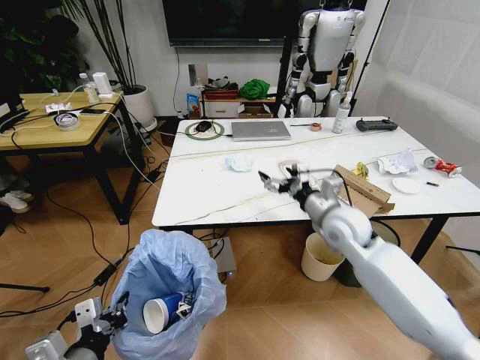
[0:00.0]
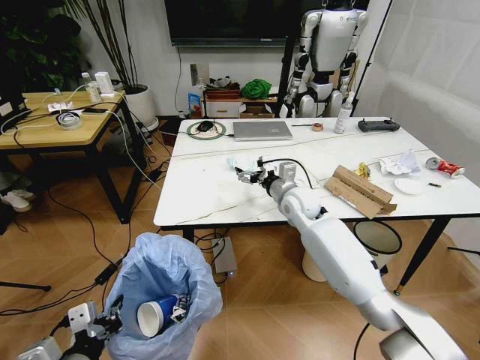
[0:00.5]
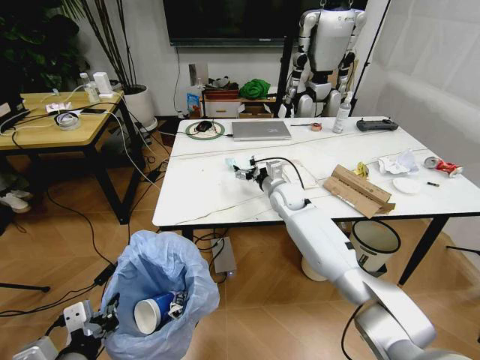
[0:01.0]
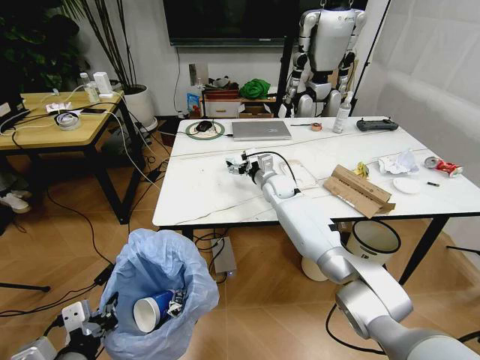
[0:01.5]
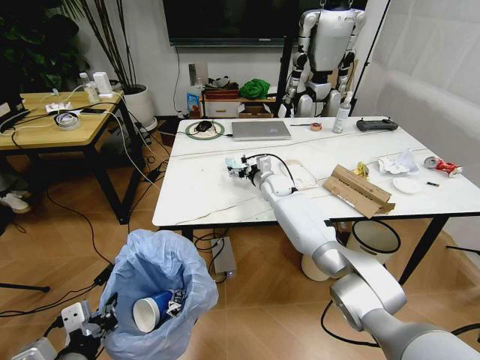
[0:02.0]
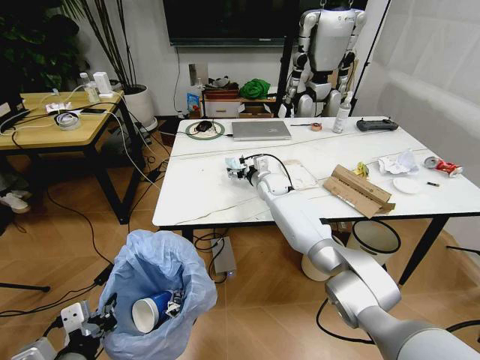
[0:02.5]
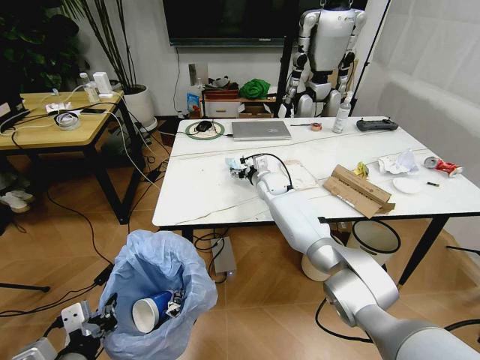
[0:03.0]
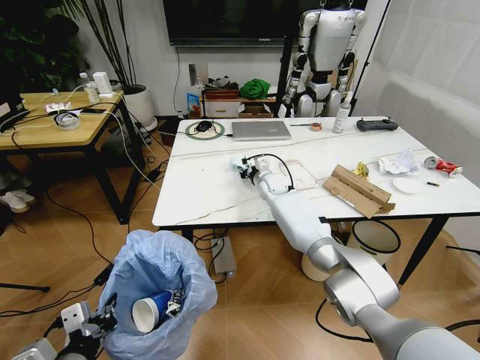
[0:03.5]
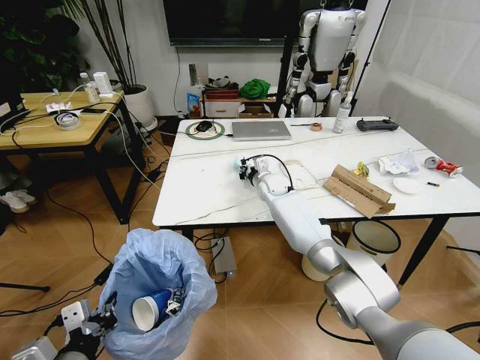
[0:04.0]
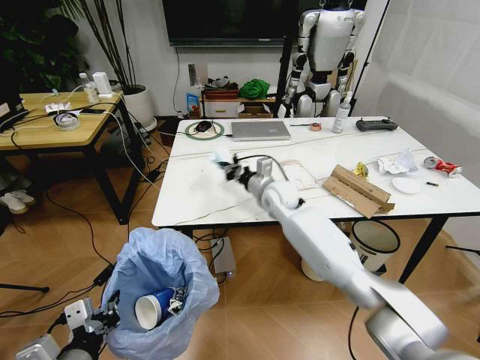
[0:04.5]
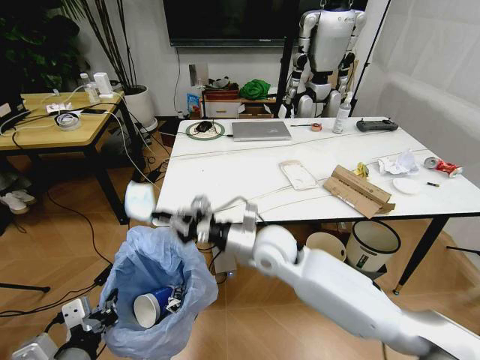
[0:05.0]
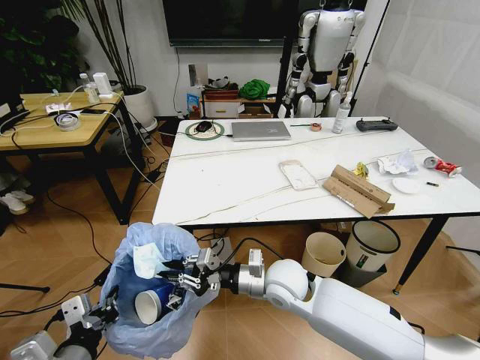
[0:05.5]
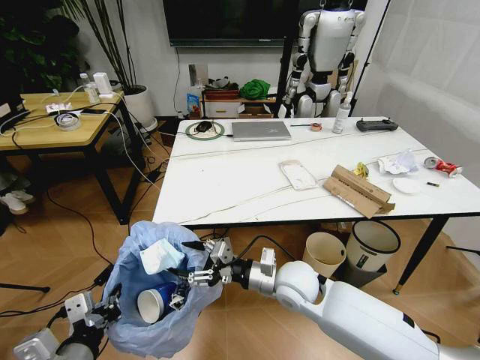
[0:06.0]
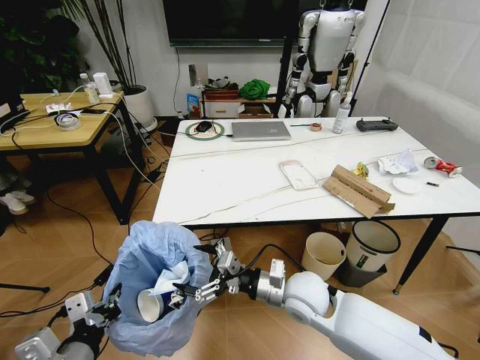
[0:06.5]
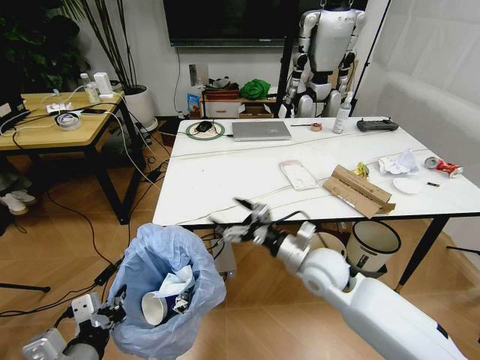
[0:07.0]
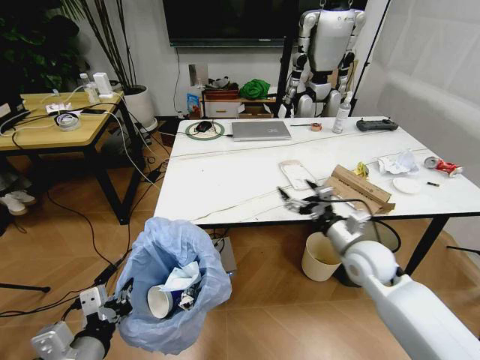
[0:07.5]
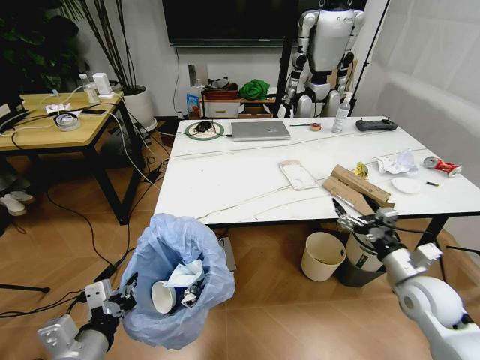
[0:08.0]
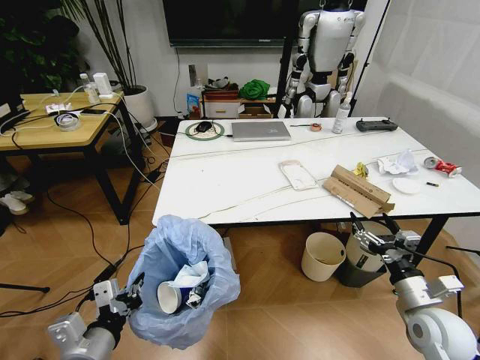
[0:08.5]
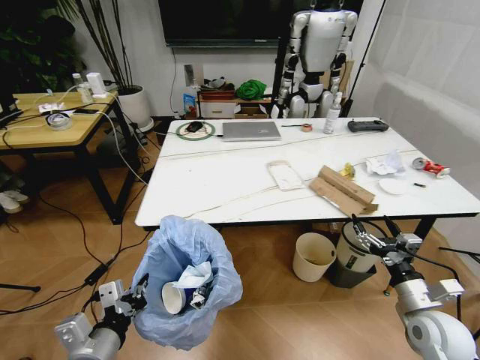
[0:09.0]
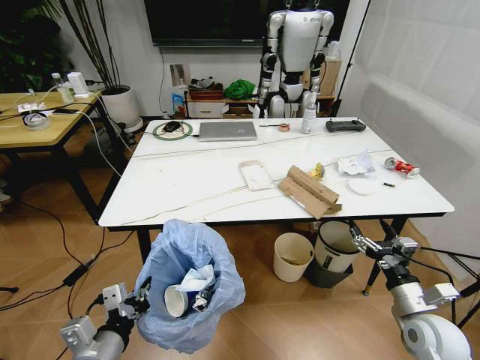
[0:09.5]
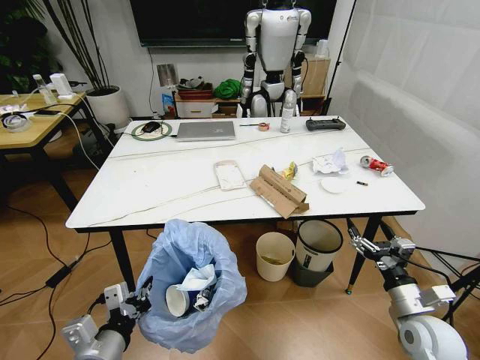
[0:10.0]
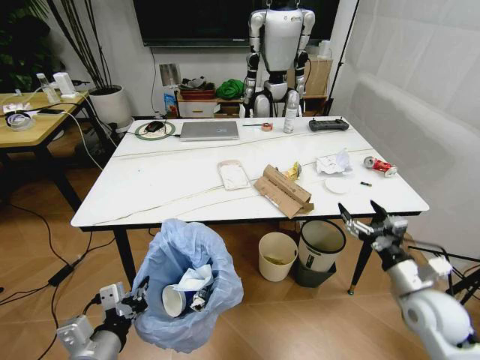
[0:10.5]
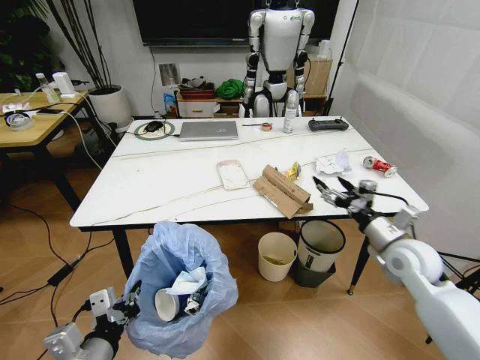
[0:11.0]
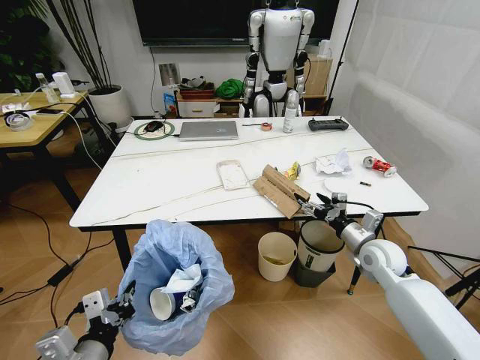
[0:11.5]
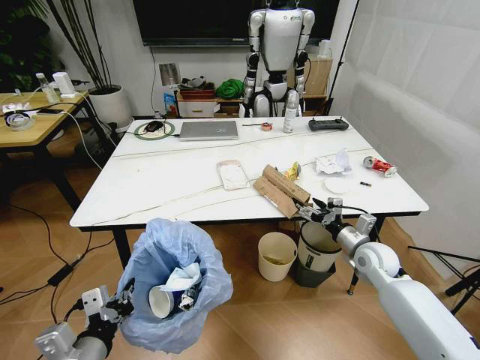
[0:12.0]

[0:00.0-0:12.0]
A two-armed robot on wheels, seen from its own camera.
Task of the whole recording: Pick up the trash bin and place the trash from the table into it.
0:00.0 to 0:02.0: The right gripper goes about 25 cm forward and to the left.
0:02.0 to 0:04.0: The right gripper closes.
0:04.0 to 0:06.0: The right gripper is displaced backward by roughly 30 cm, and opens its fingers.
0:06.0 to 0:08.0: The right gripper heads to the right, covering approximately 25 cm.
0:08.0 to 0:10.0: The right gripper moves backward, about 5 cm.
0:10.0 to 0:12.0: The right gripper heads forward, covering roughly 15 cm.

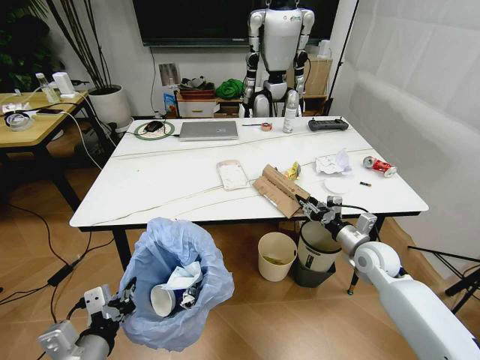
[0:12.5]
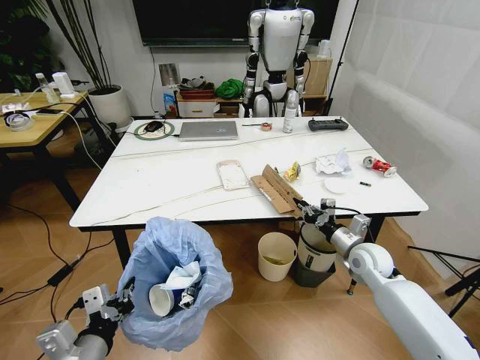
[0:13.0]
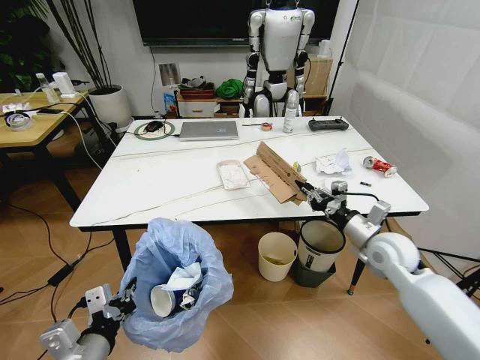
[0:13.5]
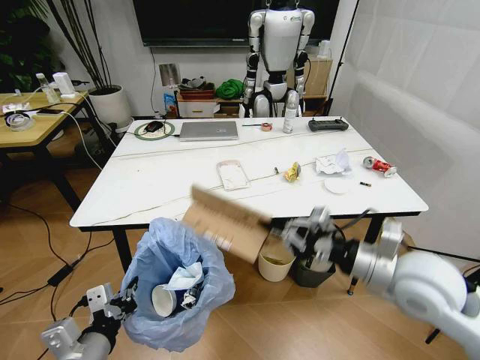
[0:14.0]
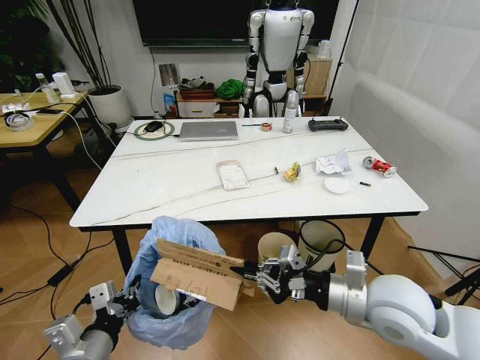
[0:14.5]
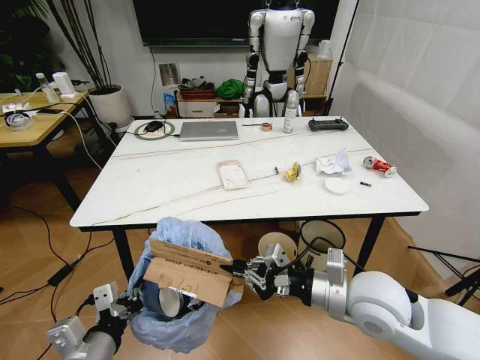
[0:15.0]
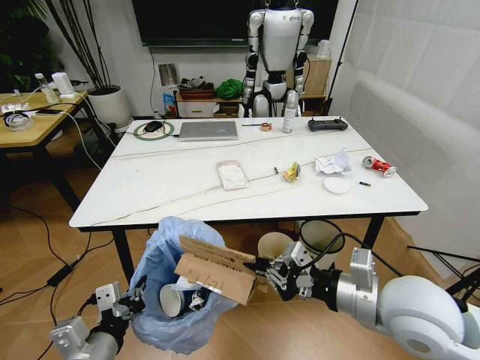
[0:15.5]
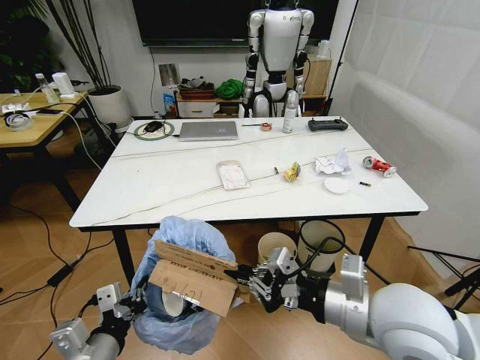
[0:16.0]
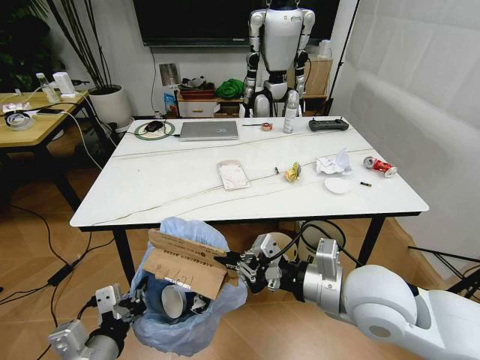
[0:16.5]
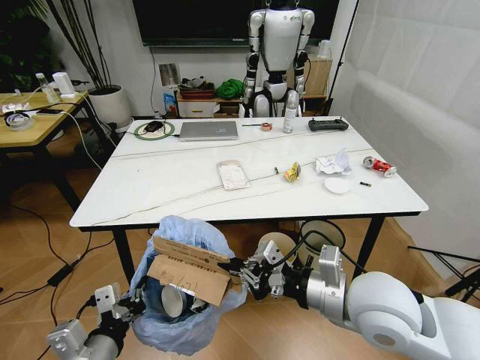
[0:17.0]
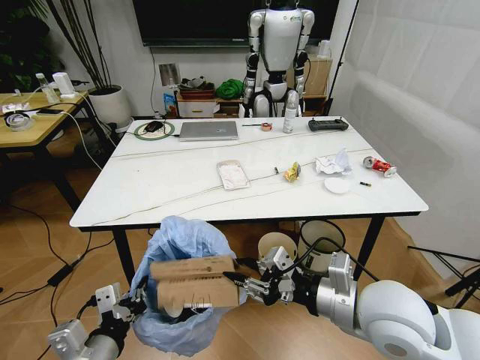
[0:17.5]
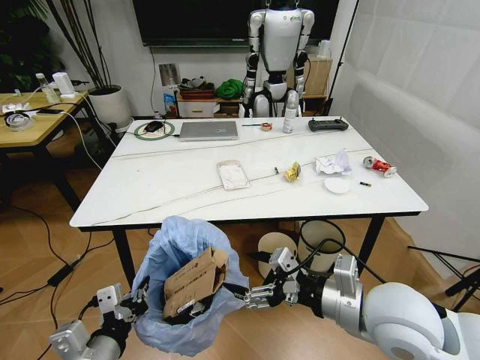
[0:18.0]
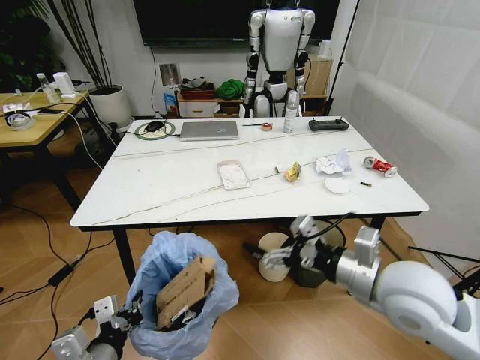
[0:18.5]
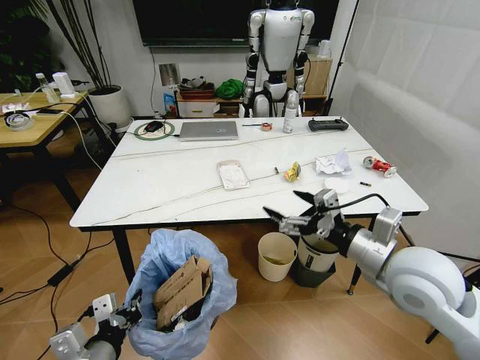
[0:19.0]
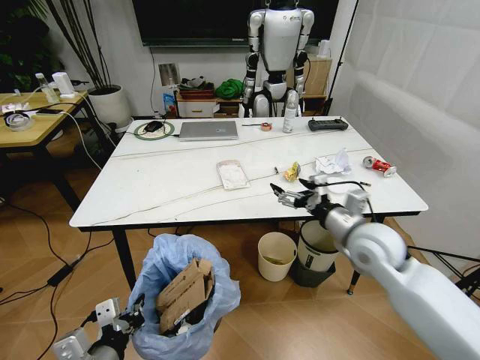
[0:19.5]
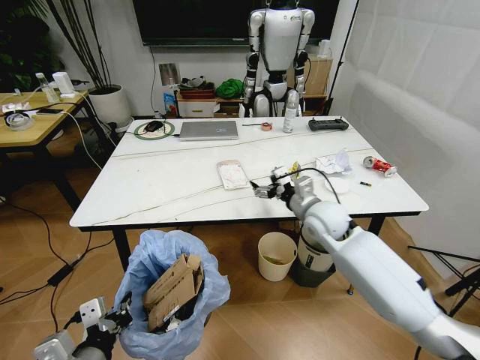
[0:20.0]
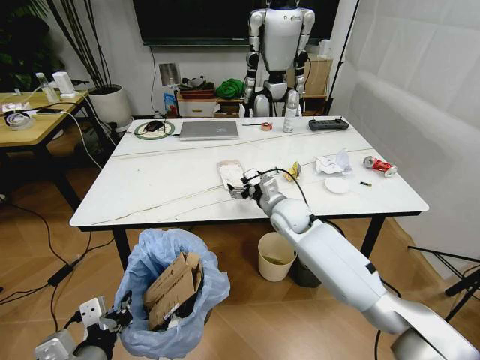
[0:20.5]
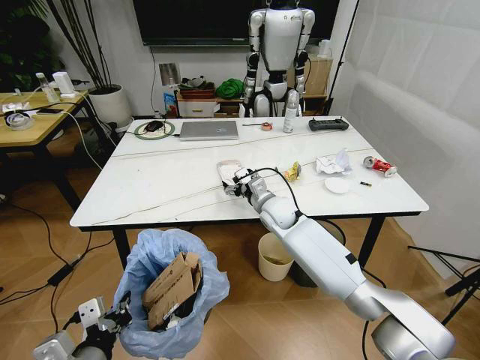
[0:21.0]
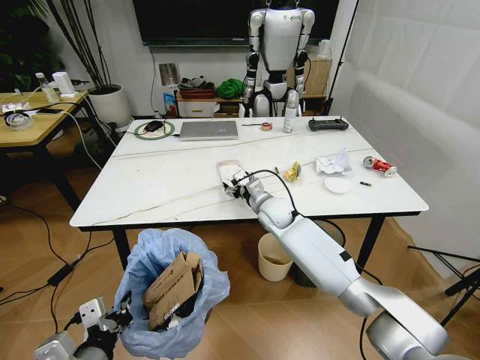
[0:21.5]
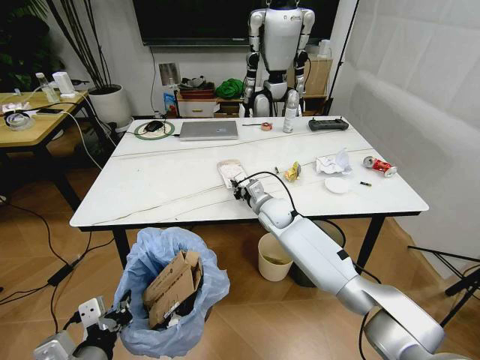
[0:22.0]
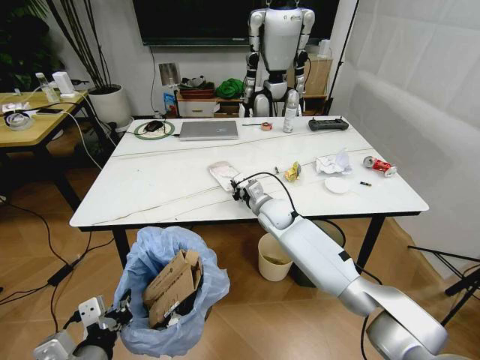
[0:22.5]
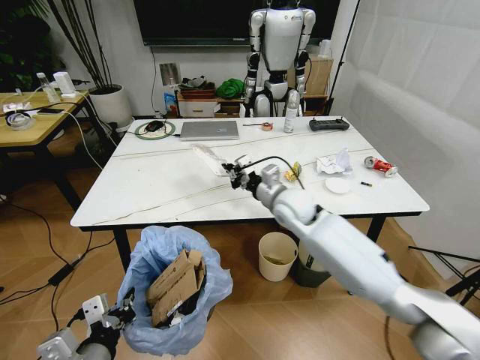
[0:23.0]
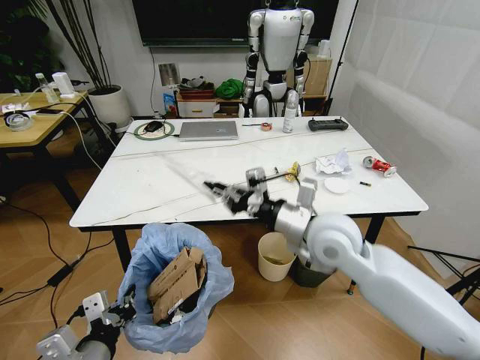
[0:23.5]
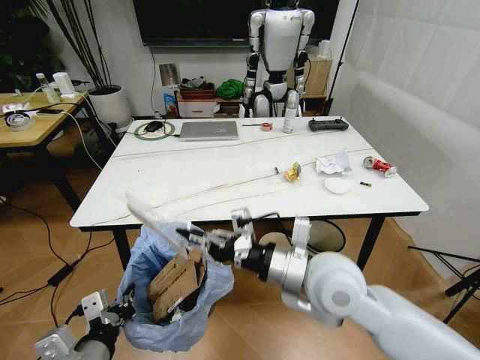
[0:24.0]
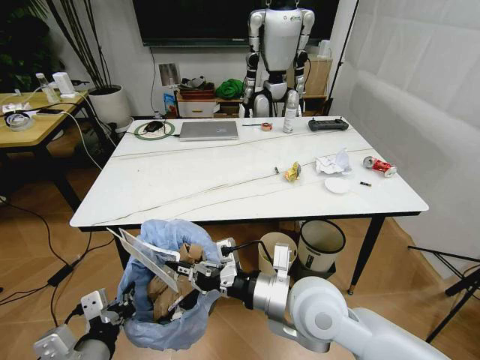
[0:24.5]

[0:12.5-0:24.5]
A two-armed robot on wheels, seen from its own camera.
Task of the whole recording: Pick up the trash bin and place the trash from the table into it.
0:12.5 to 0:14.5: The right gripper travels backward, upward and to the left by roughly 20 cm, and closes up.
0:14.5 to 0:16.5: The right gripper shifts by approximately 5 cm.
0:16.5 to 0:18.5: The right gripper heads to the right, covering about 5 cm, and opens up.
0:18.5 to 0:20.5: The right gripper moves forward, to the left and downward, approximately 30 cm.
0:20.5 to 0:22.5: The right gripper shifts by roughly 5 cm, and closes.
0:22.5 to 0:24.5: The right gripper moves backward, approximately 30 cm.

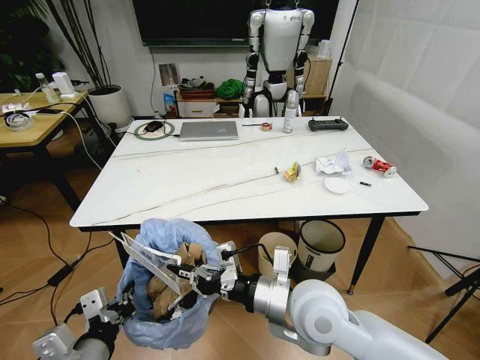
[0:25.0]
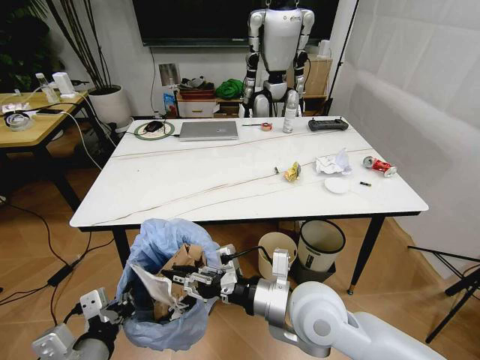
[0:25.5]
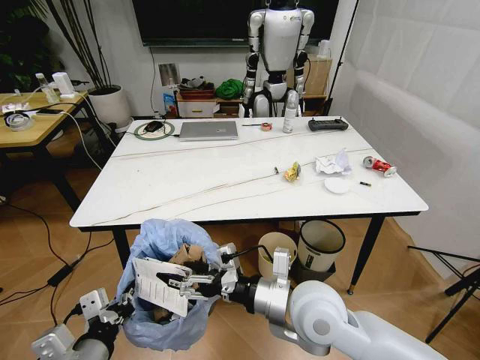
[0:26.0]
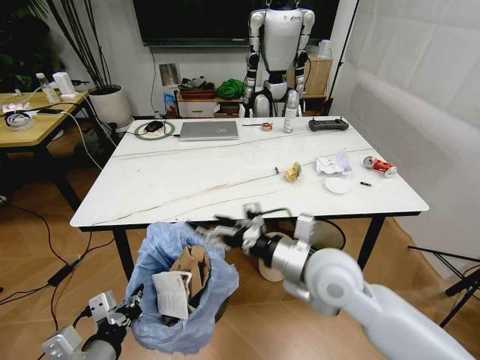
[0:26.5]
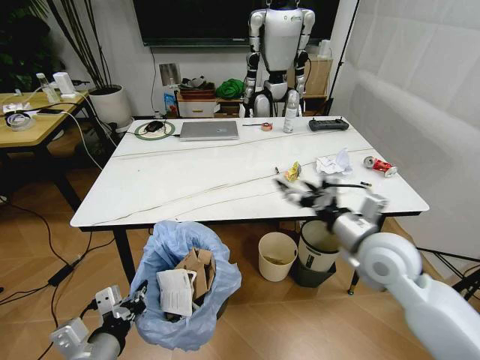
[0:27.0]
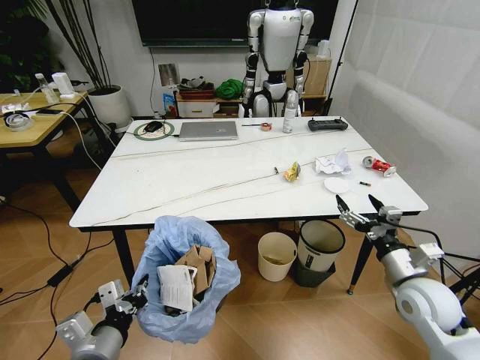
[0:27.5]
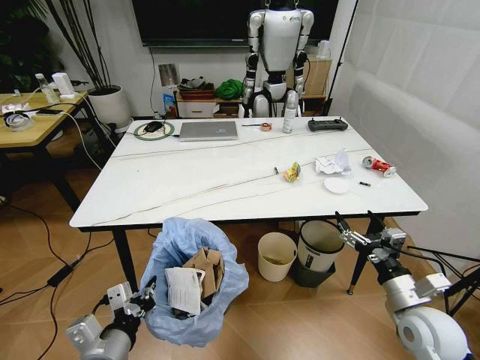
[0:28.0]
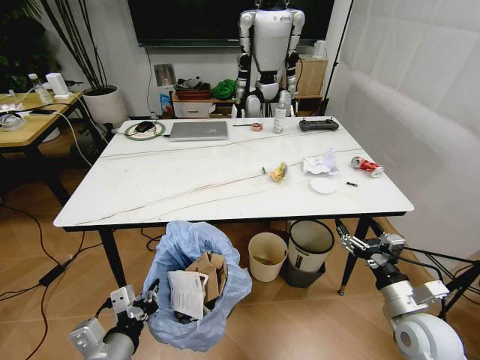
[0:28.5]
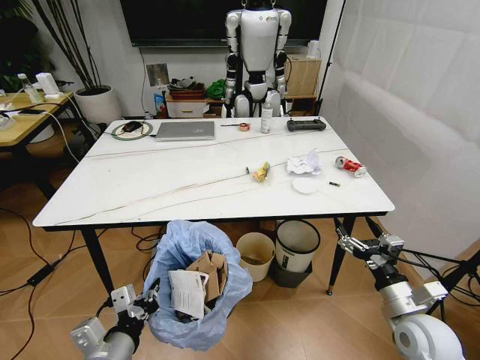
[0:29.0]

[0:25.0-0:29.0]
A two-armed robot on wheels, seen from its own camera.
Task of the whole recording: Pick up the trash bin and place the trash from the table into it.
0:25.0 to 0:27.0: The right gripper heads to the right and forward, covering roughly 15 cm, and opens.
0:27.0 to 0:29.0: The right gripper heads downward, to the right and backward, covering about 20 cm.
